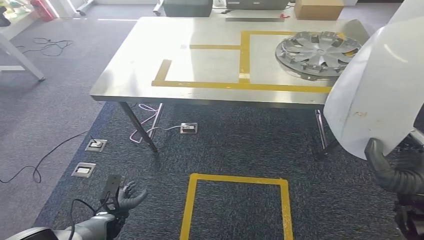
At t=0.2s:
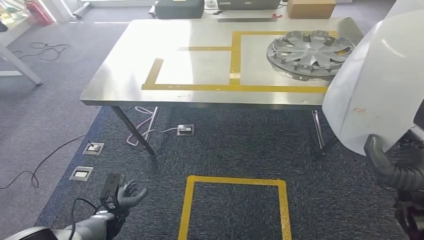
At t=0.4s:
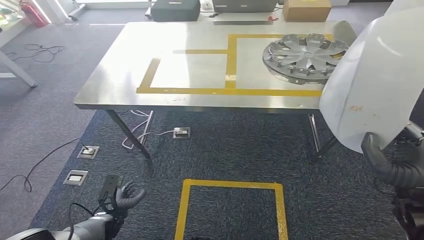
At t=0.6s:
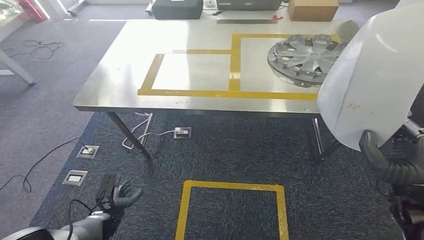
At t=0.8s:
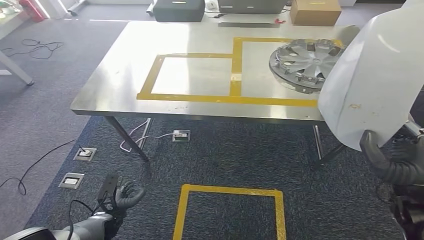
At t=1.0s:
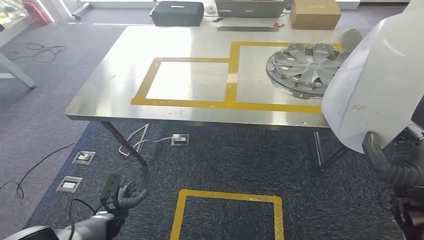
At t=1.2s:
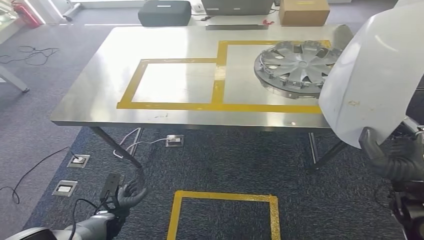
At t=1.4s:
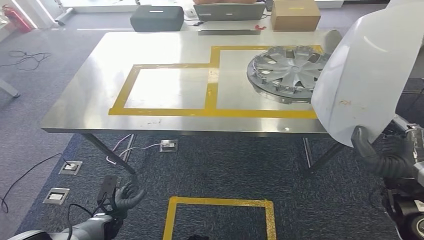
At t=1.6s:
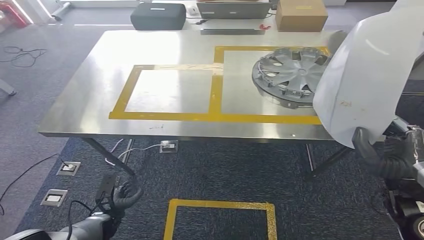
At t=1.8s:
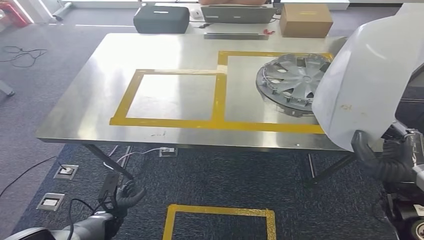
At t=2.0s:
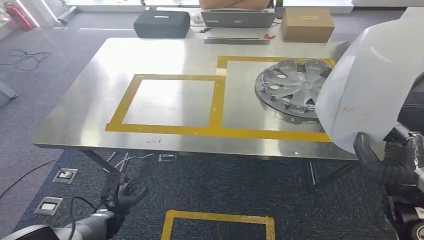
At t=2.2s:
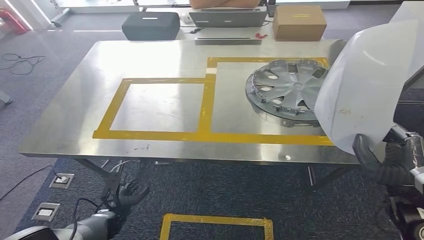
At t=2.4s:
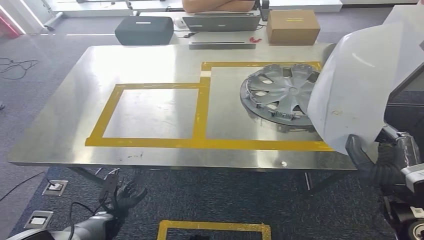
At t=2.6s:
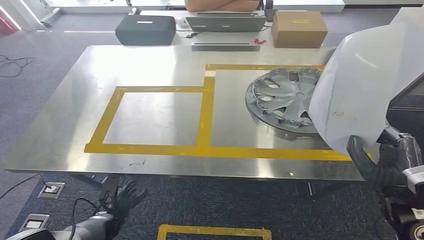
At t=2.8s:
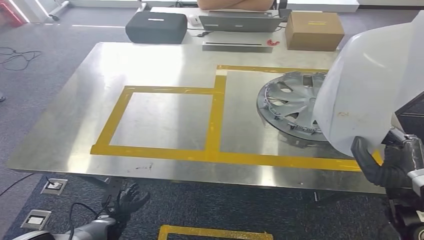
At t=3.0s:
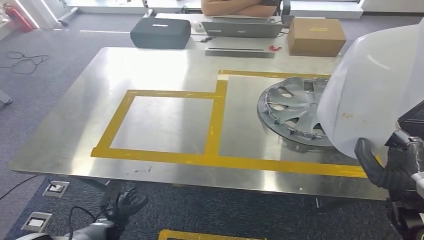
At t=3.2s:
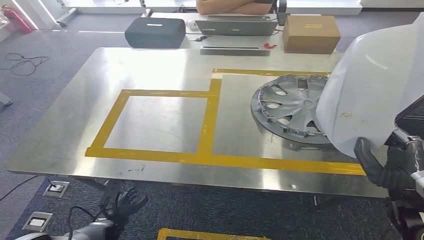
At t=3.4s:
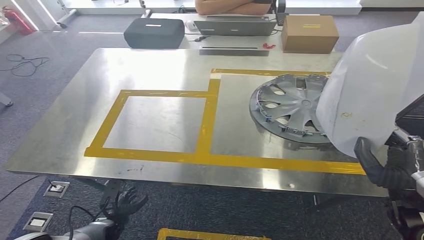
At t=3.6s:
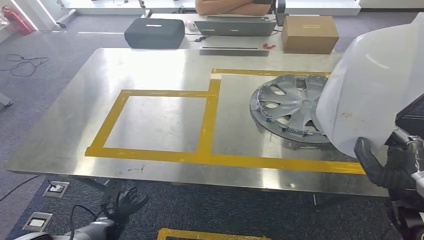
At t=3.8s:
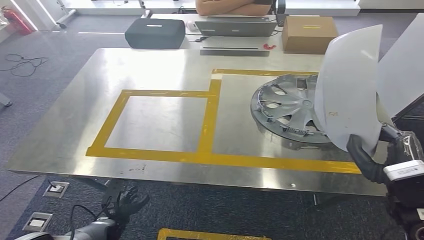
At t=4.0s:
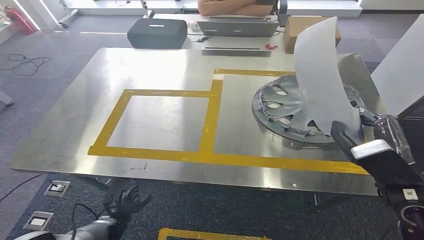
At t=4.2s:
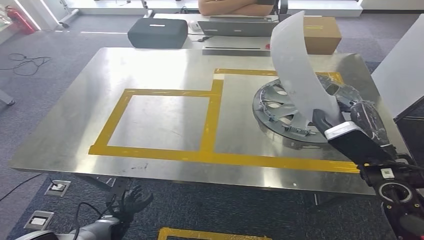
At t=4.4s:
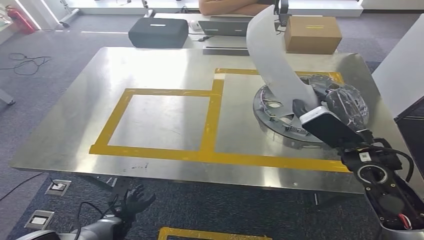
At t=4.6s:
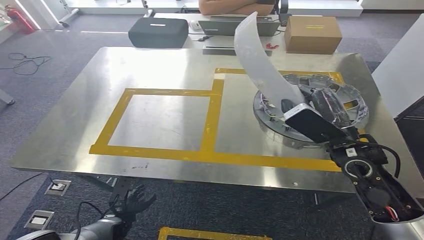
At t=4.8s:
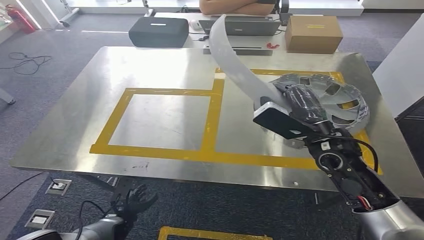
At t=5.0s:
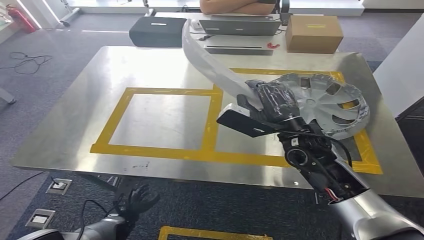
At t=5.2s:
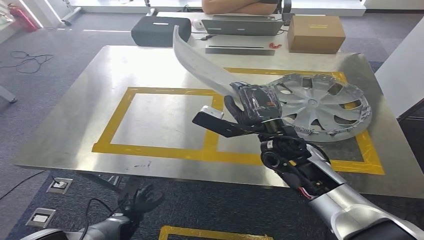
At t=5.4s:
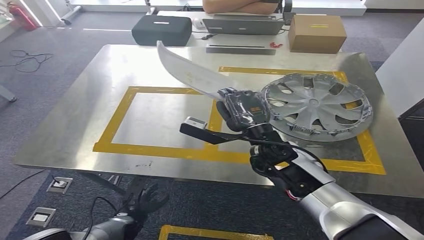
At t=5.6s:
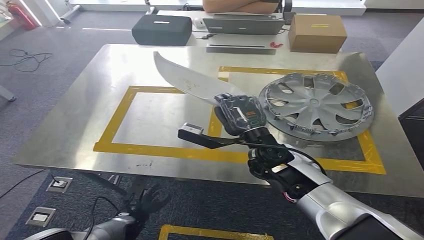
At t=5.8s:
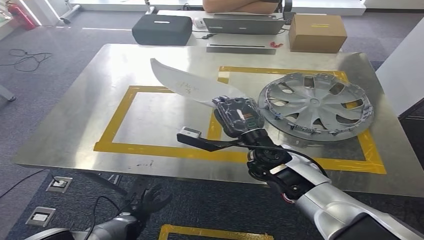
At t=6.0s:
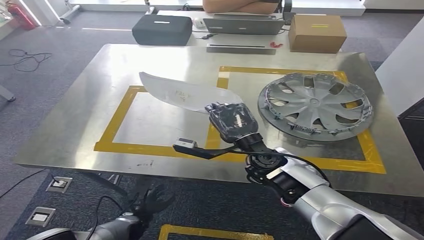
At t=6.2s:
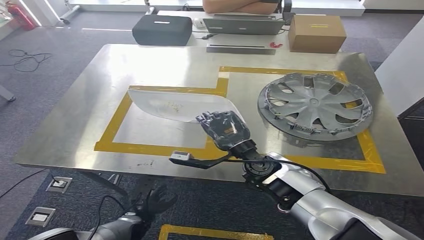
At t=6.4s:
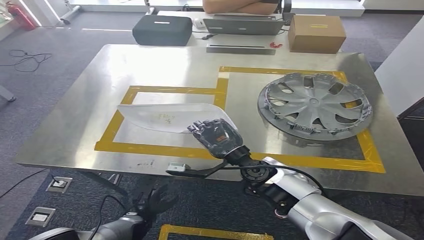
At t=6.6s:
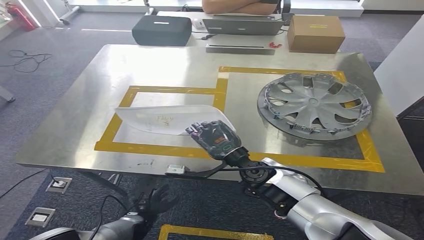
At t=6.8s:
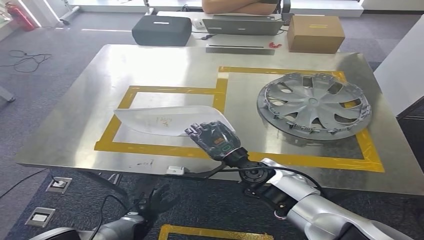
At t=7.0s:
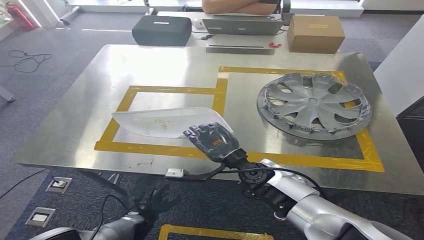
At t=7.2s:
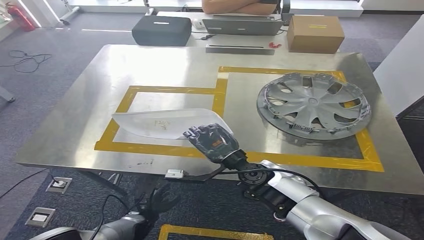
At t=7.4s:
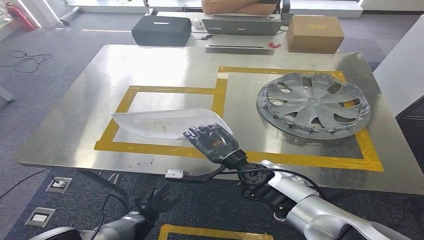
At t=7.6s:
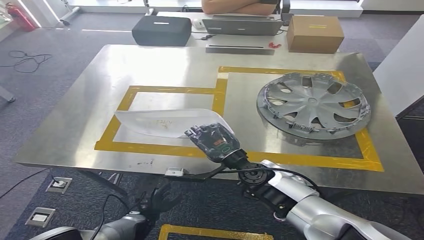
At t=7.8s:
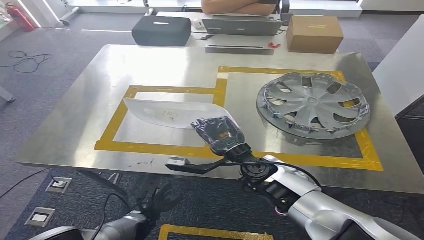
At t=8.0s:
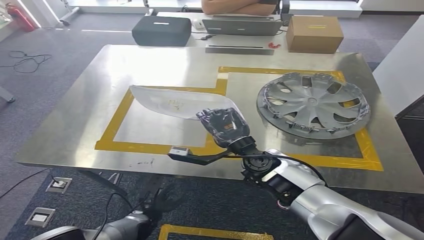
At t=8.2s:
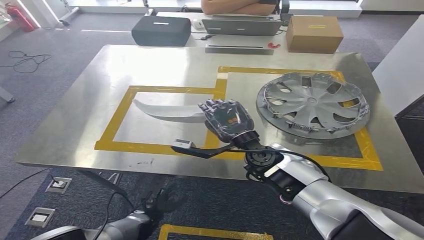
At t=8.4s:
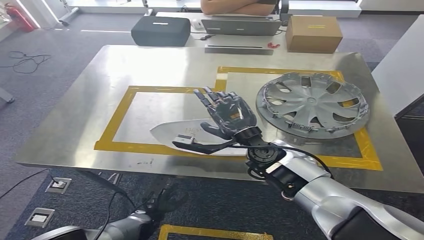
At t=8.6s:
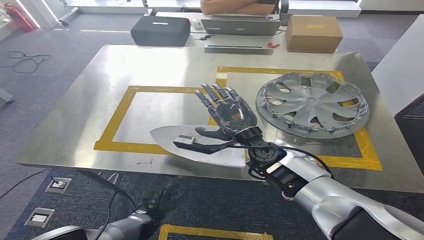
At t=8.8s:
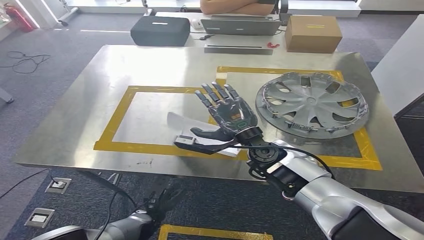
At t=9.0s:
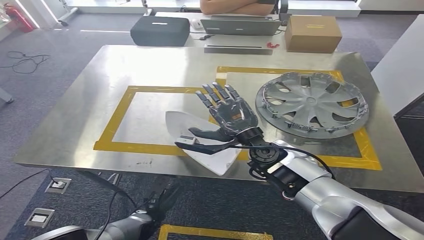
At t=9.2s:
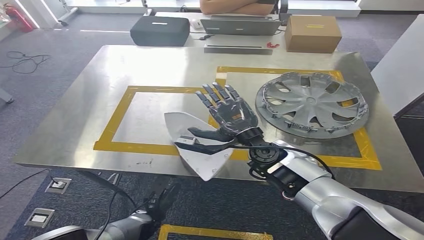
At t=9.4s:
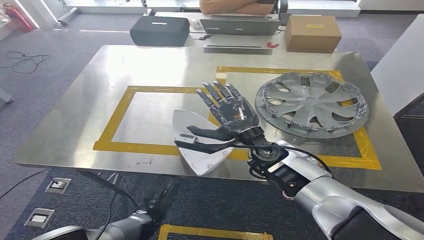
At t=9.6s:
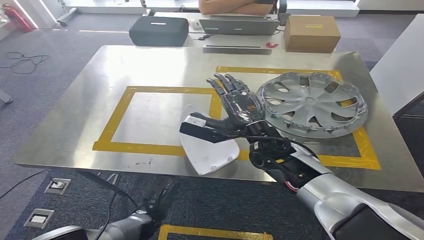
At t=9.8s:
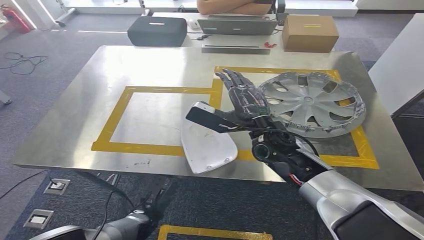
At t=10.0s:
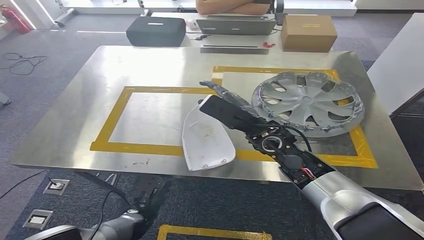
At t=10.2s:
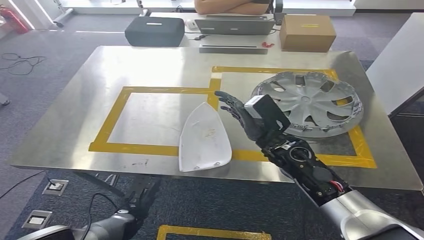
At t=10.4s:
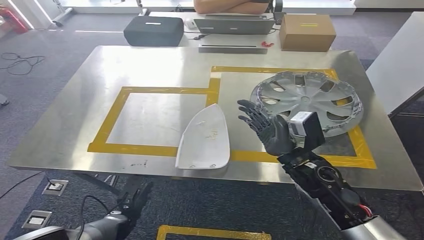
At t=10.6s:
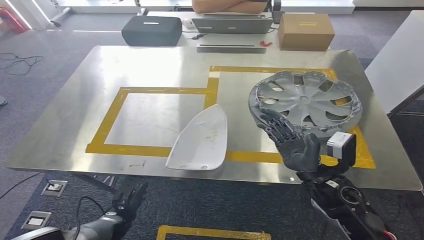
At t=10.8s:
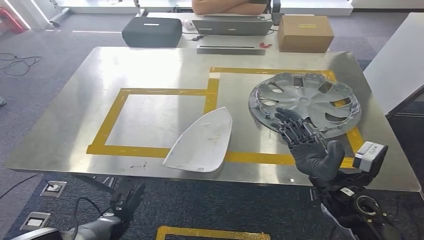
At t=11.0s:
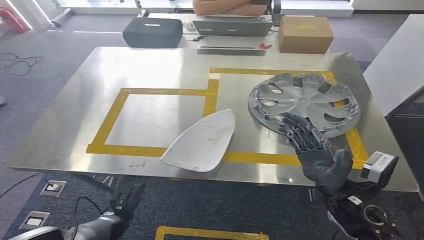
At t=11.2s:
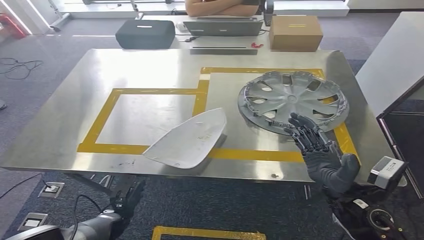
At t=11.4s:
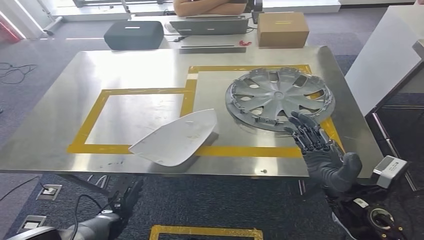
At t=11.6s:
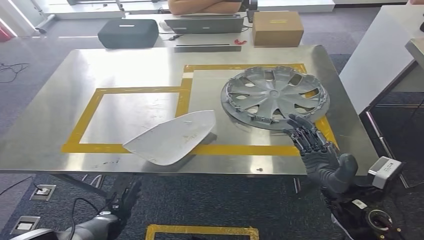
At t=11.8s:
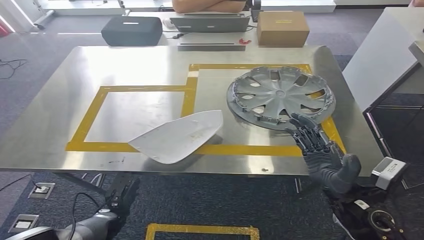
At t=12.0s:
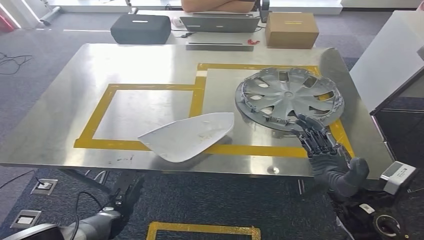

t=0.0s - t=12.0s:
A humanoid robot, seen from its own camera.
Step, t=0.0s - t=2.4s: Move the small parts to the workbench.
t=6.0s - t=7.6s: The hands move only a little.
t=7.6s - t=9.0s: The right hand shifts by approximately 5 cm.

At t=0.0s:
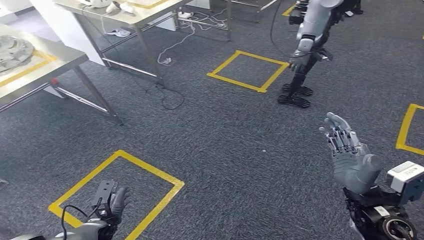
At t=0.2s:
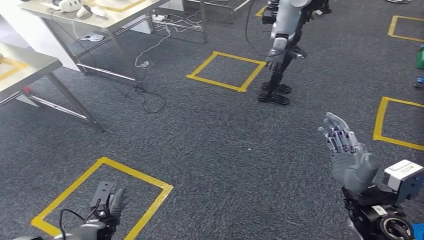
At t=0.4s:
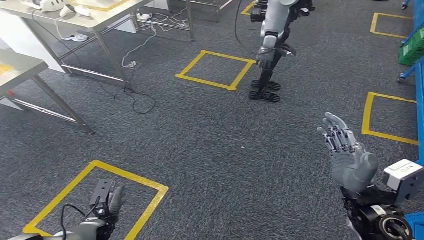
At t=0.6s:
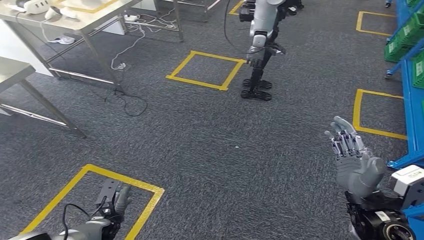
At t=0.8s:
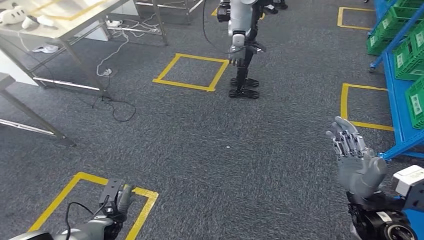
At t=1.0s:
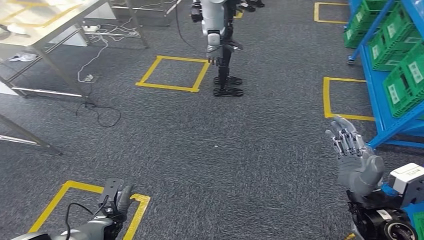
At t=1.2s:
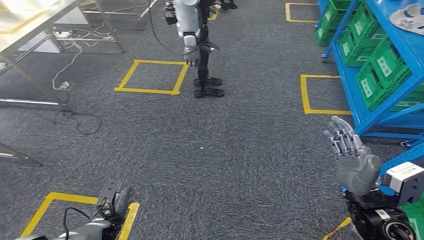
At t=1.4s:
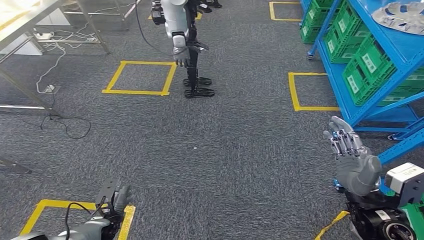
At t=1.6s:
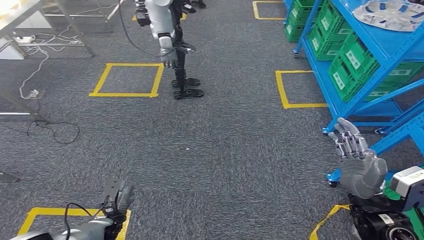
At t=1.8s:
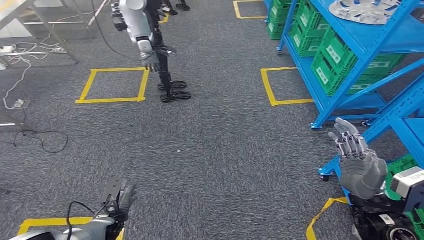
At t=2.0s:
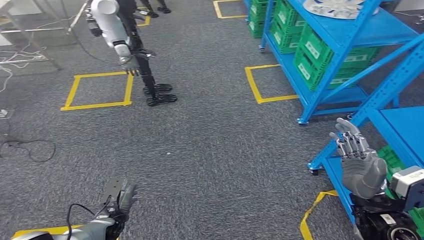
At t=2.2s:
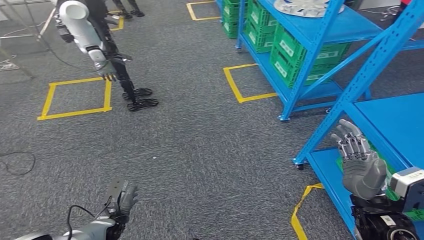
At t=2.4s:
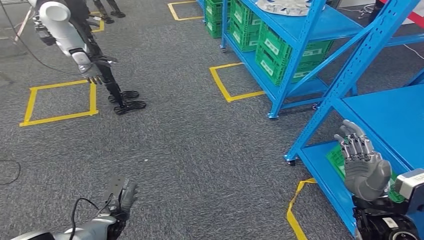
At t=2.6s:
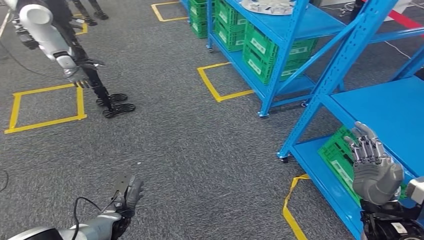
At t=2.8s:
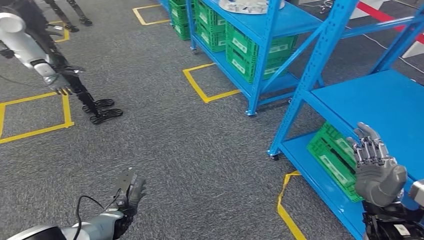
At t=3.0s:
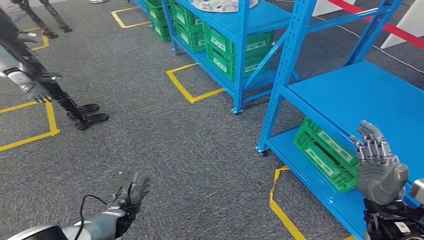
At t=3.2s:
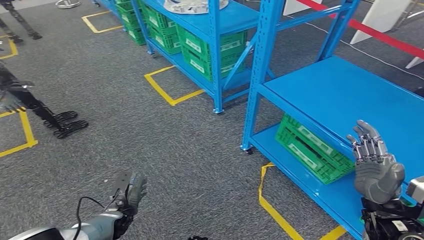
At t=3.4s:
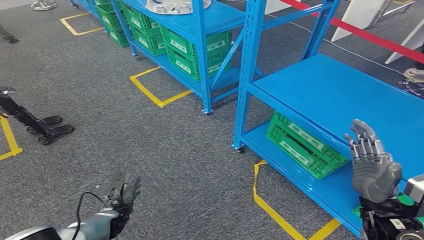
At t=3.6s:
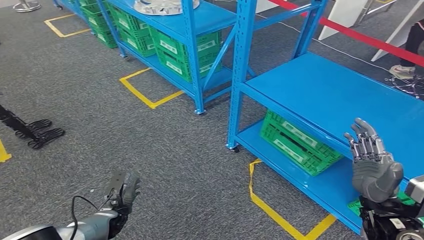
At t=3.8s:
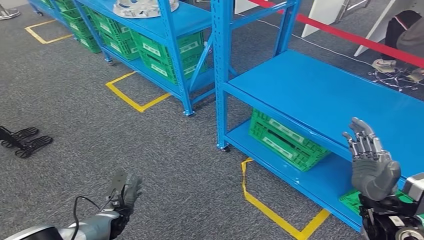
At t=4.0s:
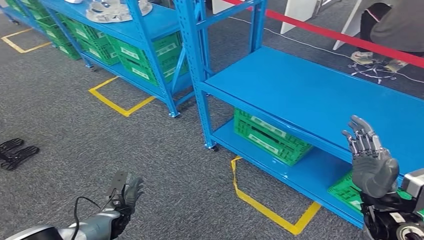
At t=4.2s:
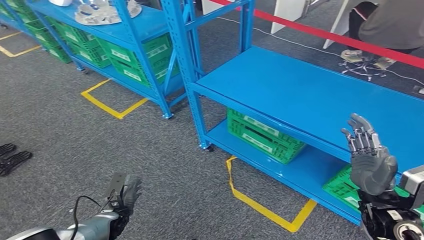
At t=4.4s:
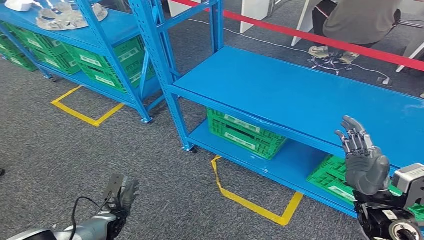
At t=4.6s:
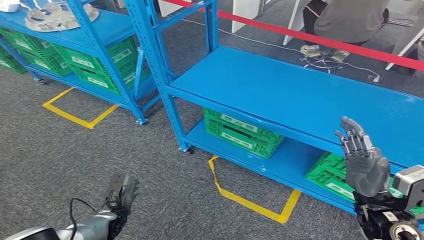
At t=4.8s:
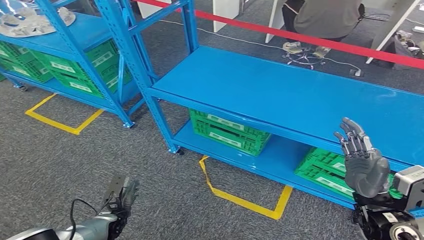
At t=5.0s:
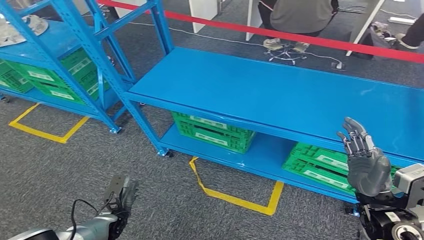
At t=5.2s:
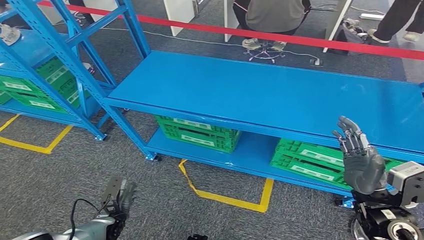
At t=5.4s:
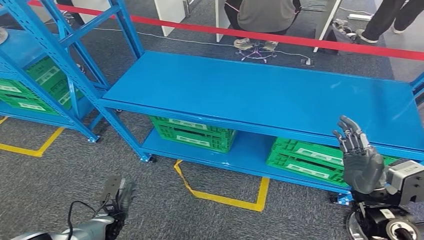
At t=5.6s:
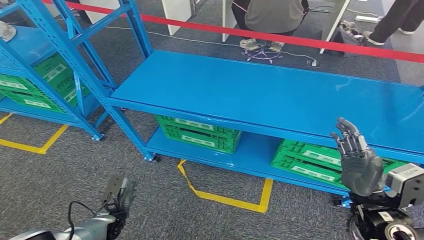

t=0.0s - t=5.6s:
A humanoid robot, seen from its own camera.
Step, t=0.0s - t=5.6s: Return to the initial position at the workbench.
